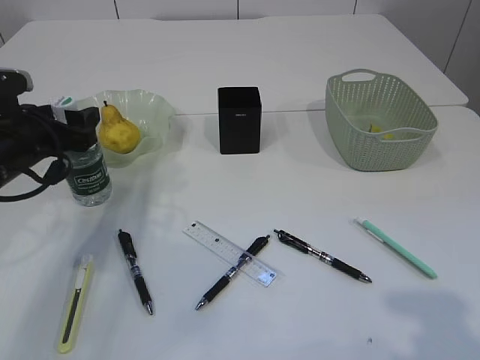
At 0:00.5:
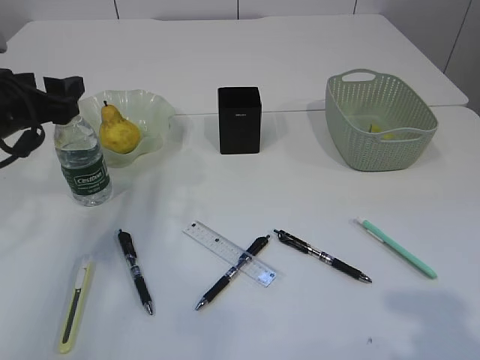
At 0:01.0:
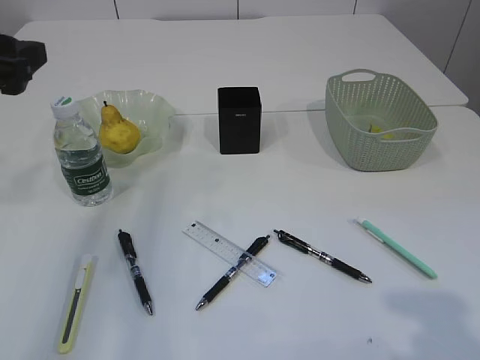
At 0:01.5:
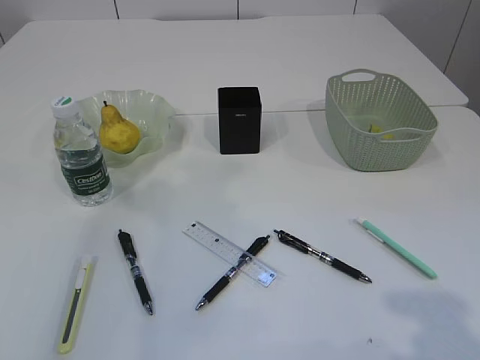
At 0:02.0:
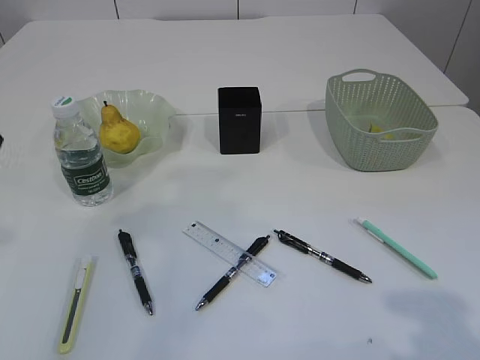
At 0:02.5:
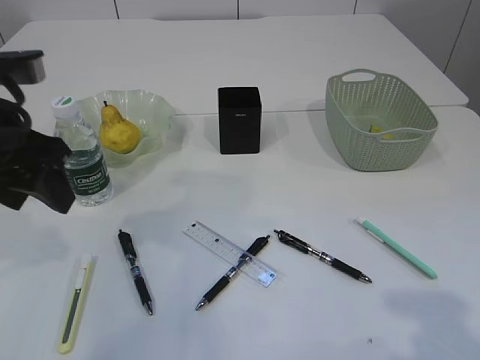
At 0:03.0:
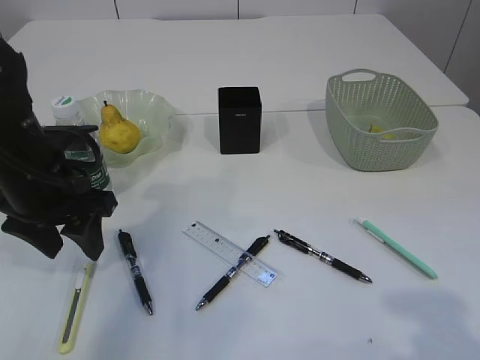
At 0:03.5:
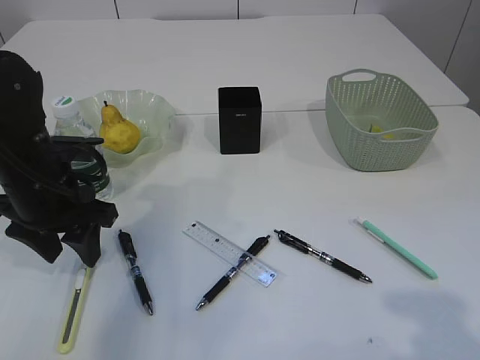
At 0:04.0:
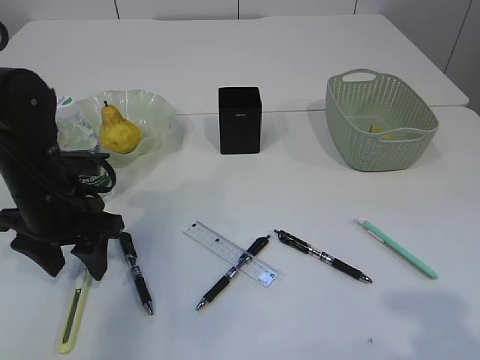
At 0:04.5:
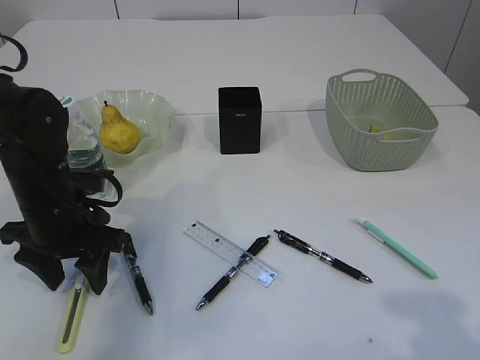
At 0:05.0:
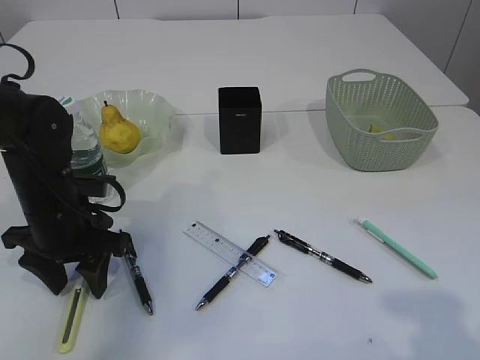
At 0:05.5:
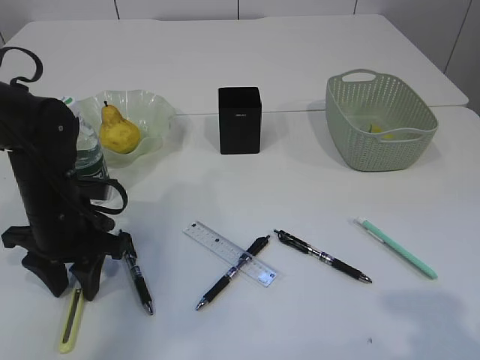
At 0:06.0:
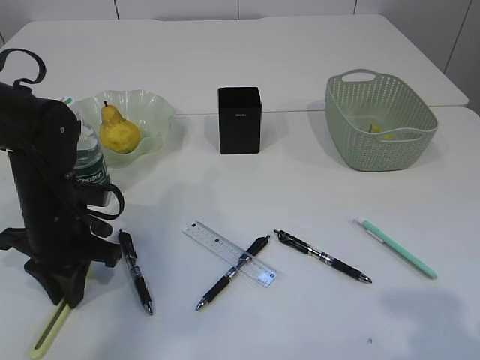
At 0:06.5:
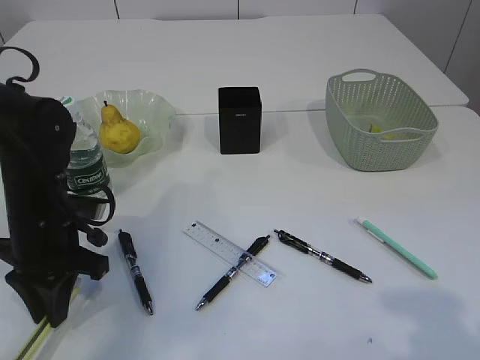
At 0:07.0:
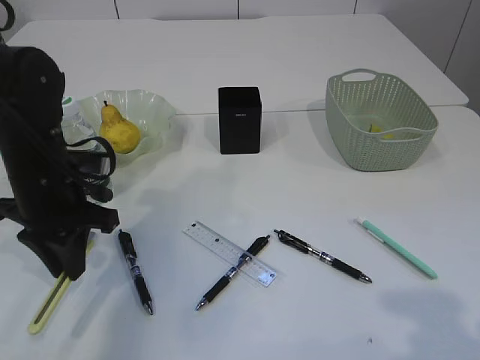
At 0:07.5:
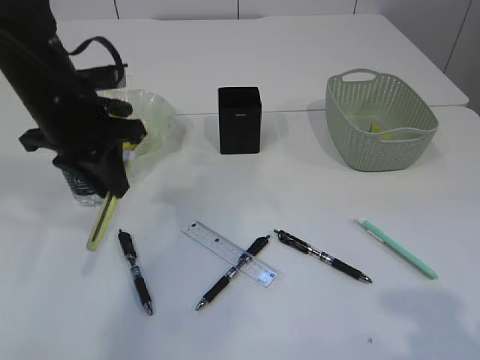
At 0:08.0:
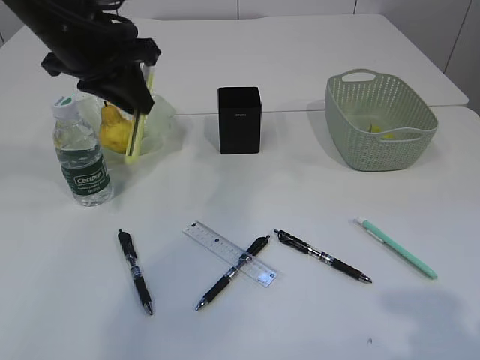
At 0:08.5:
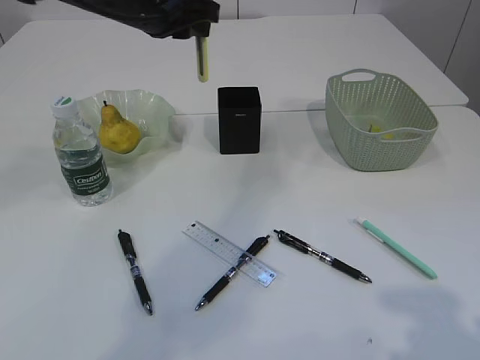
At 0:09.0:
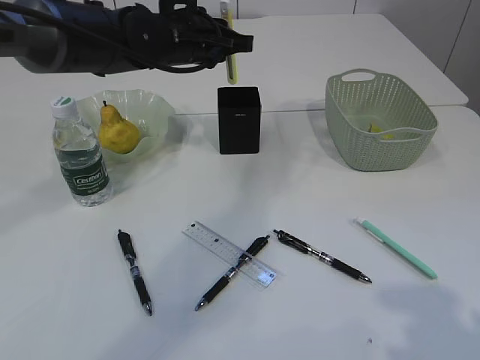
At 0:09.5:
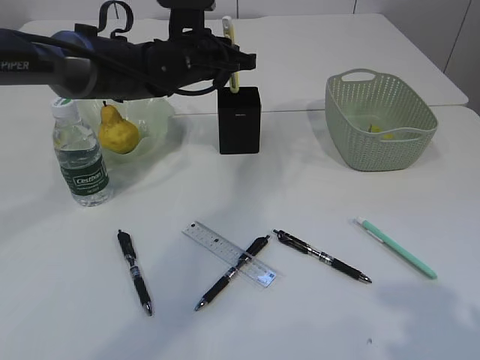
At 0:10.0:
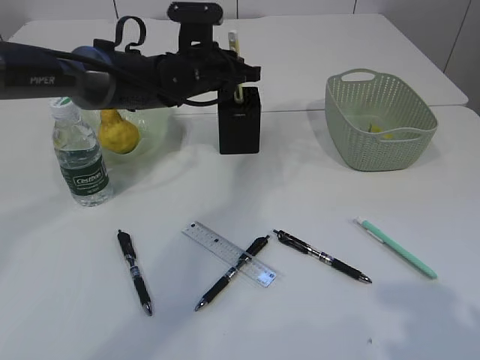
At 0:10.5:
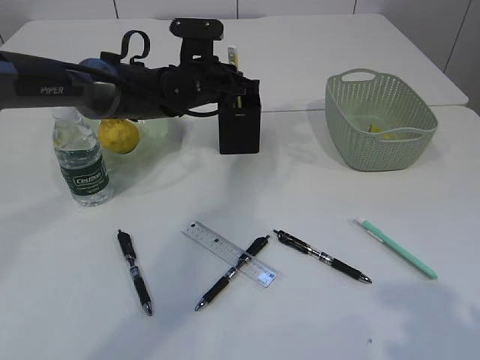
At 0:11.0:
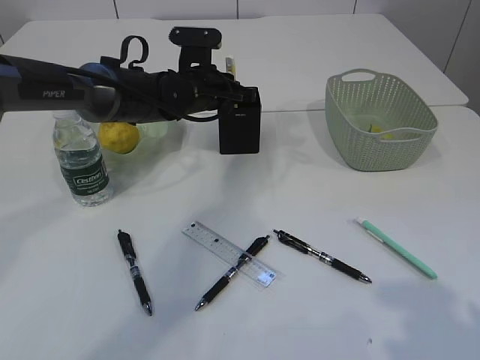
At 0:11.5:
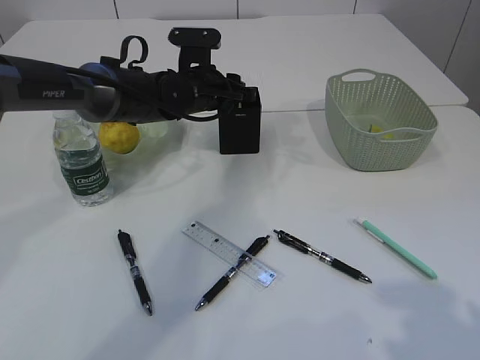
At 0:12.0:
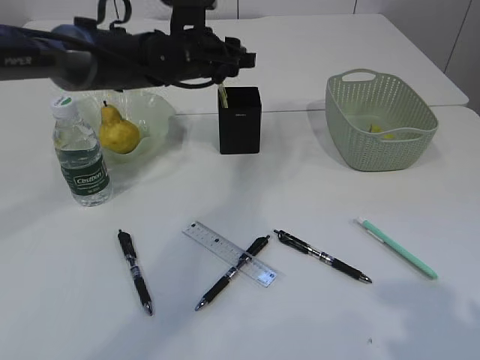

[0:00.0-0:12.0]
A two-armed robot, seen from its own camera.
Step, 0:01.0 to 0:07.0: pick up the yellow knife.
0:00.0 to 0:02.0: The left gripper goes some 20 cm upward and backward.
0:02.0 to 0:04.0: The left gripper shifts roughly 20 cm downward and forward.
0:04.0 to 0:06.0: The left gripper closes.
0:06.0 to 0:08.0: The left gripper travels upward by approximately 20 cm.
0:08.0 to 0:10.0: The left gripper is displaced forward, downward and to the right by approximately 20 cm.
0:10.0 to 0:12.0: The left gripper opens its fingers.

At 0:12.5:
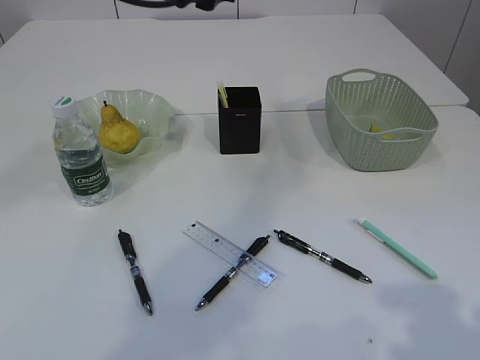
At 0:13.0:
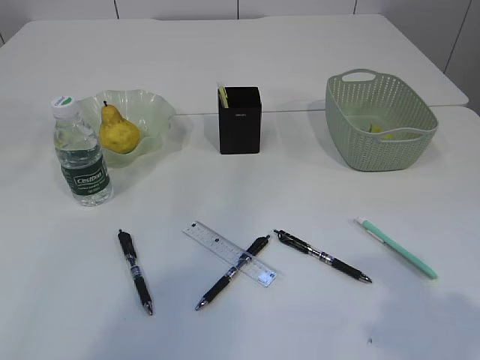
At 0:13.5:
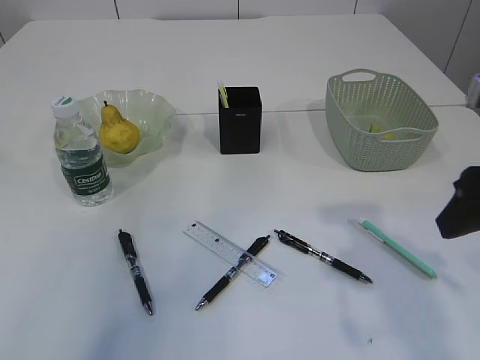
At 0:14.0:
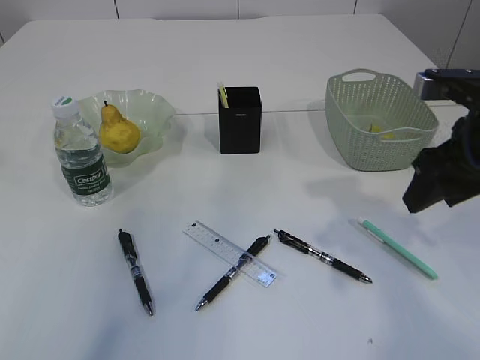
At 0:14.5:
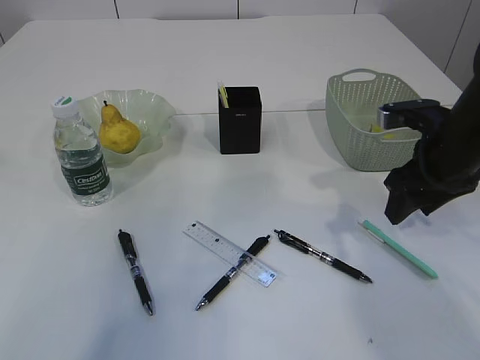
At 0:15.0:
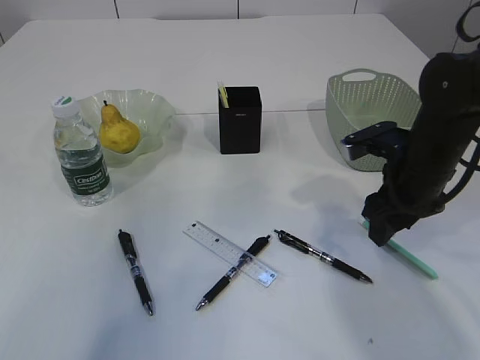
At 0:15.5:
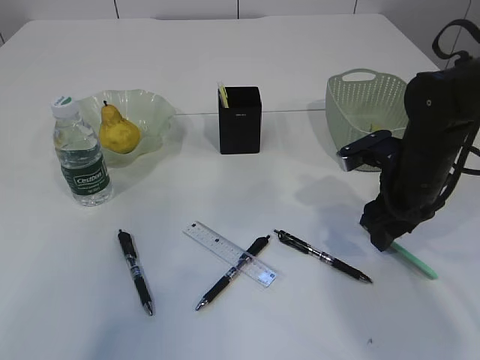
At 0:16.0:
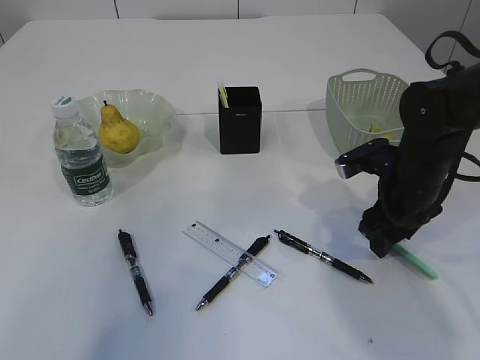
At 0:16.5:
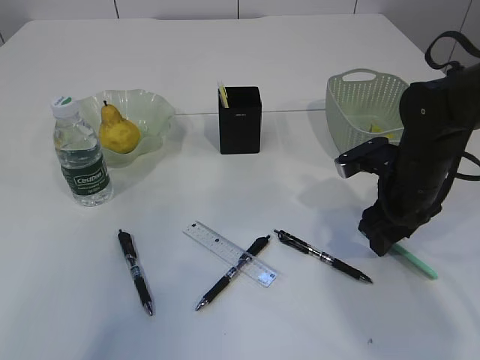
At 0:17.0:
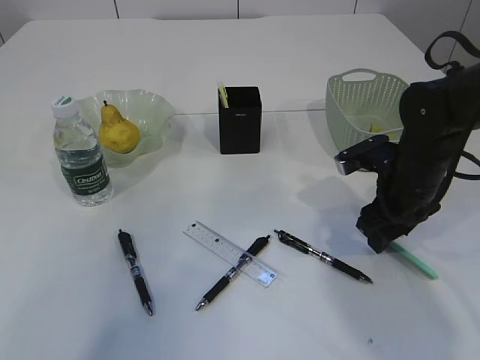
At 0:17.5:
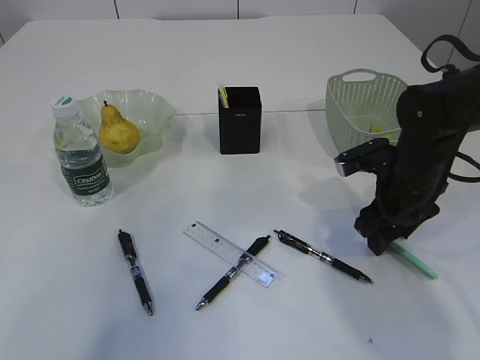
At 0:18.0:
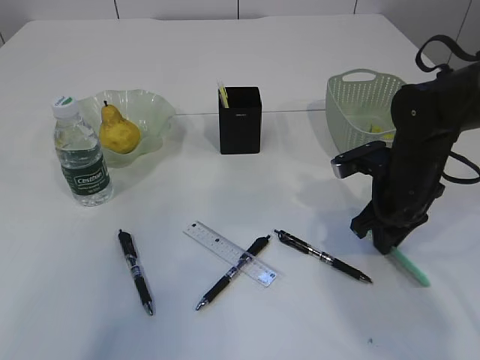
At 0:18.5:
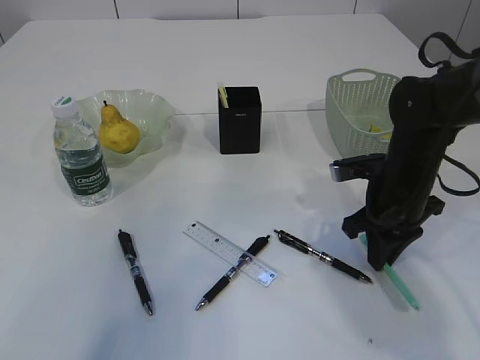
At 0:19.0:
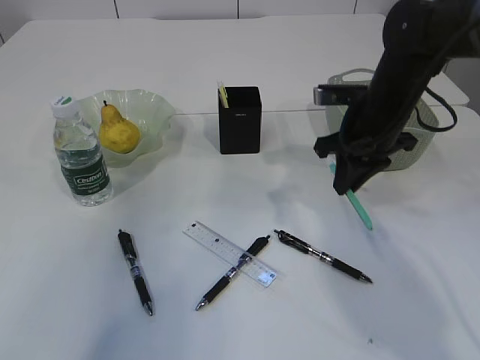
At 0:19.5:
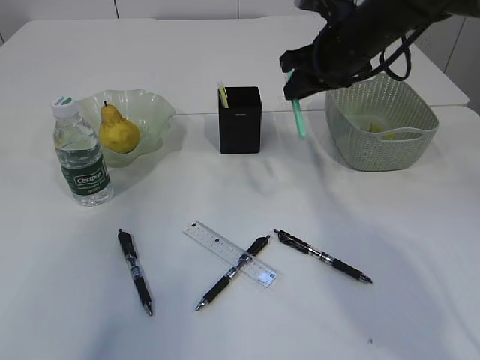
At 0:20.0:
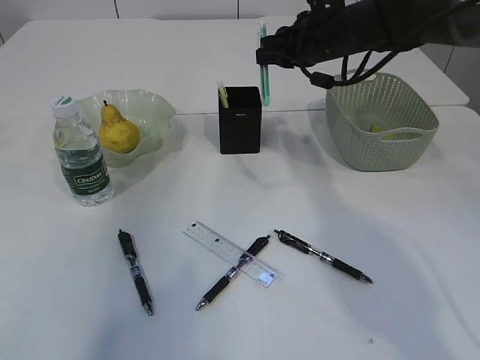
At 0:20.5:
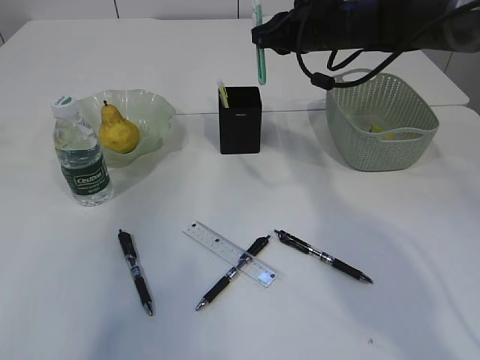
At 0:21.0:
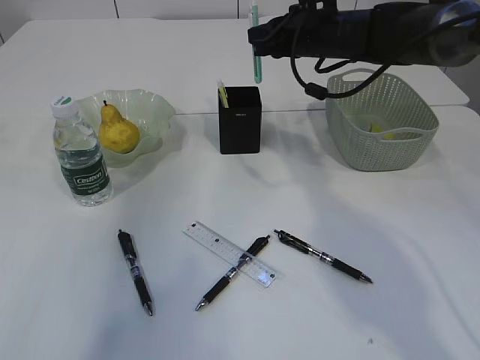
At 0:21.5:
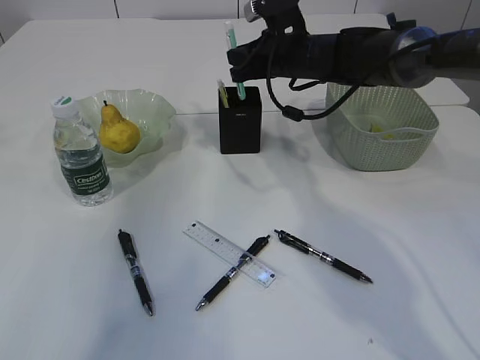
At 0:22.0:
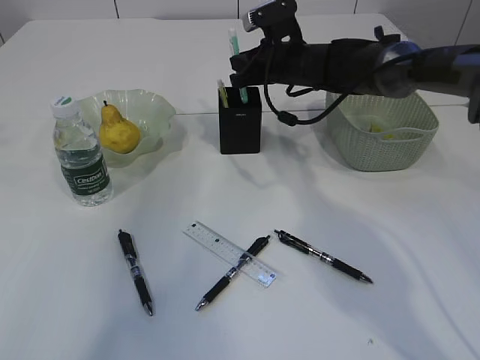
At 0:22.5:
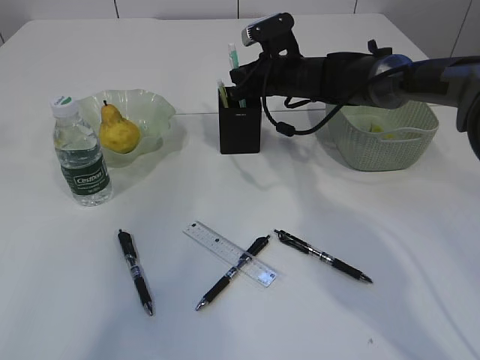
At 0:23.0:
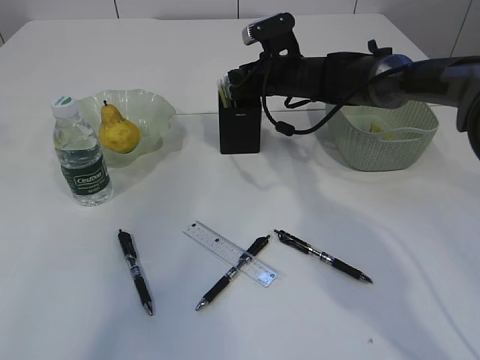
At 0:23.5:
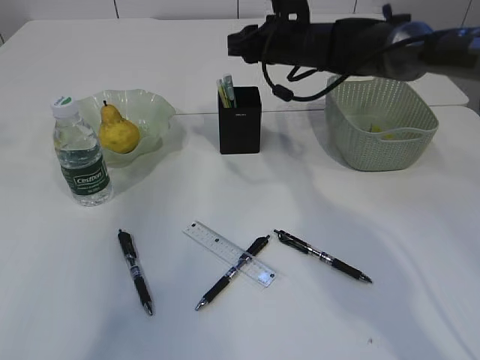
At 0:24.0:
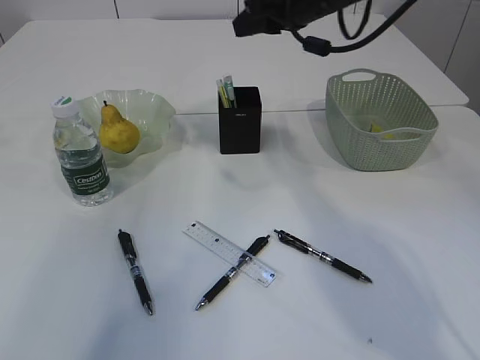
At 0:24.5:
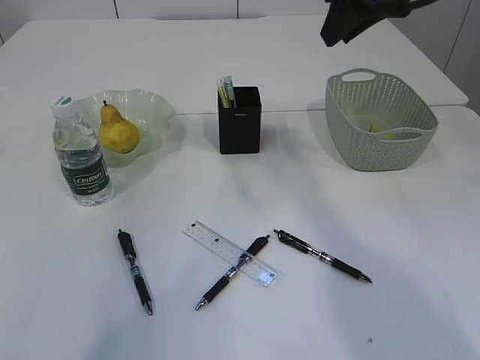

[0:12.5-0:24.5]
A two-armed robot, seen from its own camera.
Step, 0:12.5 to 0:18.5: pick up the blue knife.
Step, 0:19.0 to 0:23.5: Place the blue knife into the pen holder.
0:12.5 to 0:14.5: The right gripper goes about 25 cm forward, while the left gripper moves to the left, backward and upward, about 25 cm.
0:14.5 to 0:16.5: The right gripper is displaced downward by roughly 5 cm.
0:16.5 to 0:18.5: The right gripper closes its fingers.
0:18.5 to 0:20.5: The right gripper heads forward, upward and to the left, covering approximately 20 cm.
0:20.5 to 0:22.5: The right gripper travels downward by approximately 10 cm.
0:22.5 to 0:24.5: The right gripper goes roughly 25 cm upward and backward.

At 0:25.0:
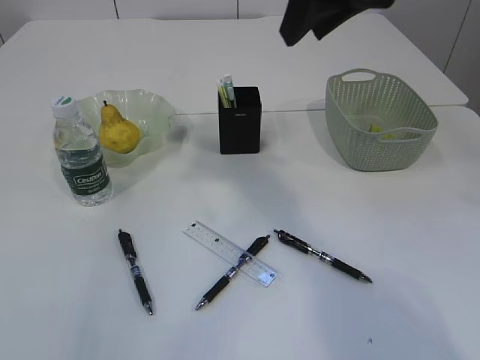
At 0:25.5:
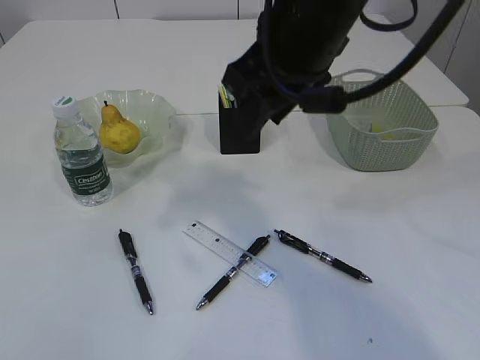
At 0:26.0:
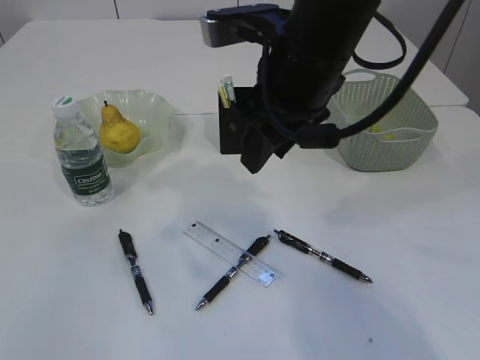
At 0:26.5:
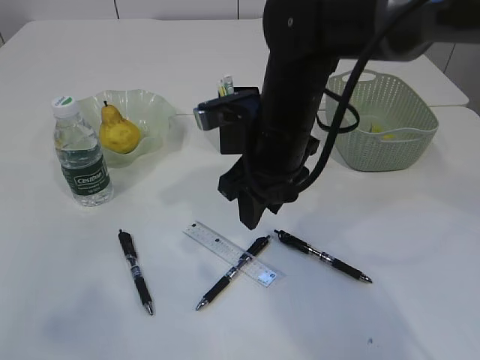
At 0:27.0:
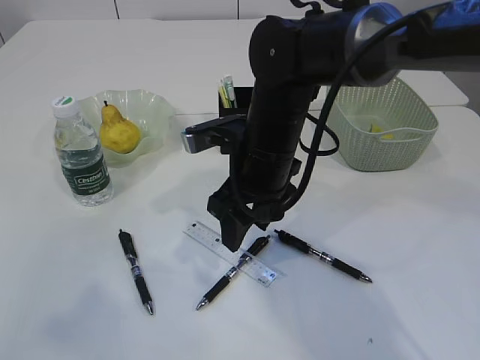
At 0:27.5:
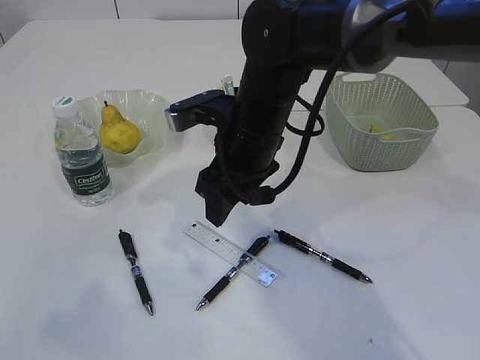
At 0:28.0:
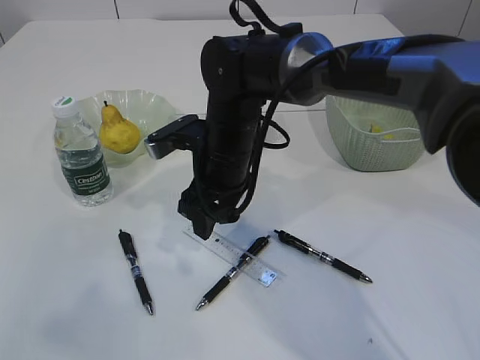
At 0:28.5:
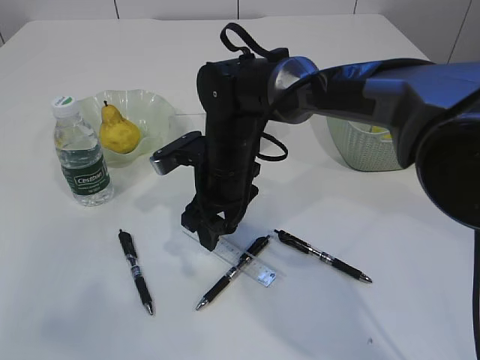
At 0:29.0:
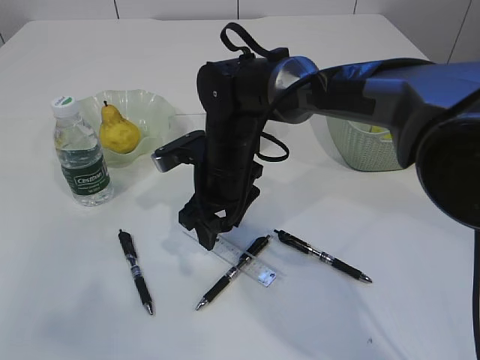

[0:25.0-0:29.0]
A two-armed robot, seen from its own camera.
0:25.0 to 0:27.0: The right gripper shifts roughly 20 cm downward and to the left. The left gripper travels backward and downward by approximately 20 cm.
0:27.0 to 0:29.0: The right gripper shifts by roughly 10 cm.
